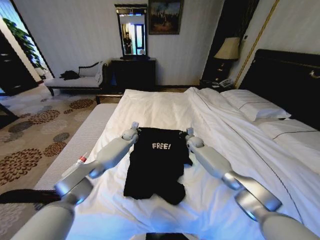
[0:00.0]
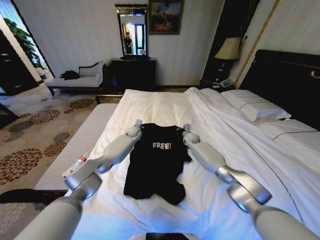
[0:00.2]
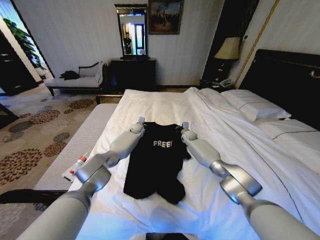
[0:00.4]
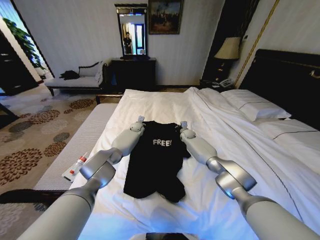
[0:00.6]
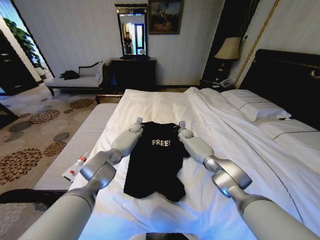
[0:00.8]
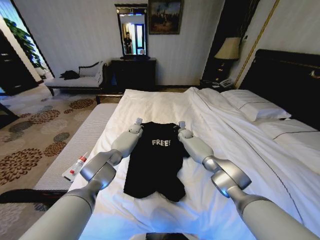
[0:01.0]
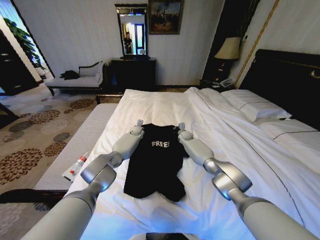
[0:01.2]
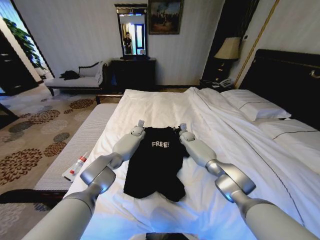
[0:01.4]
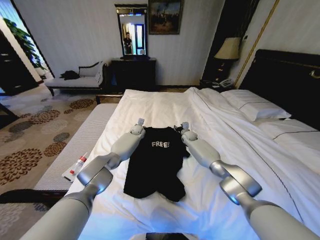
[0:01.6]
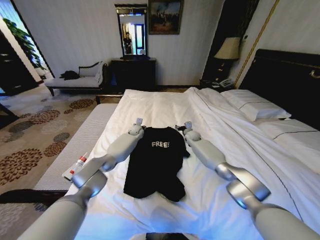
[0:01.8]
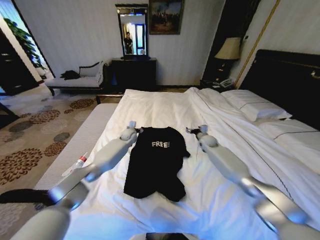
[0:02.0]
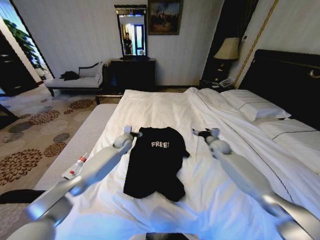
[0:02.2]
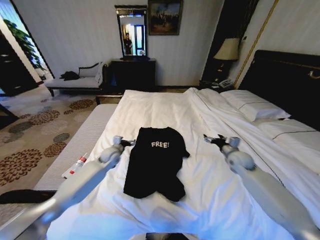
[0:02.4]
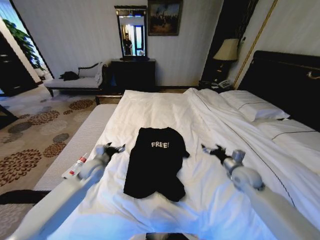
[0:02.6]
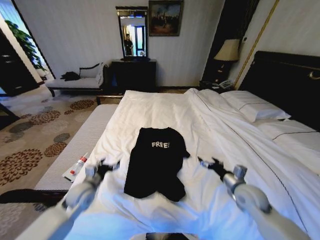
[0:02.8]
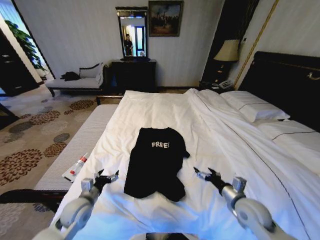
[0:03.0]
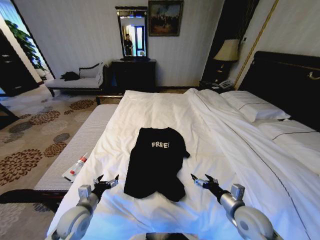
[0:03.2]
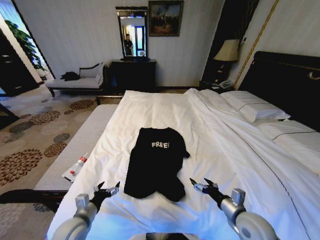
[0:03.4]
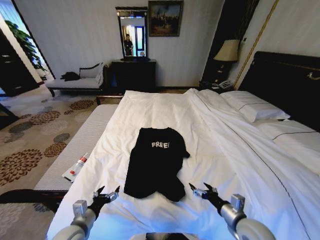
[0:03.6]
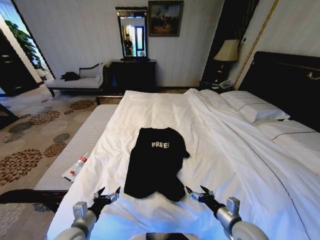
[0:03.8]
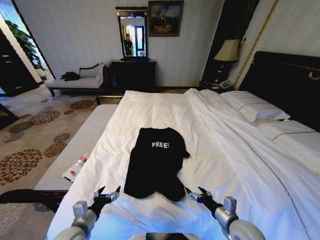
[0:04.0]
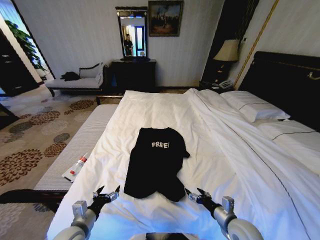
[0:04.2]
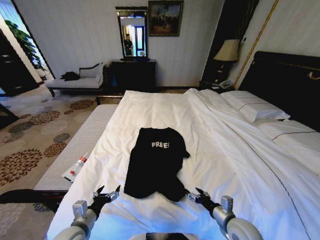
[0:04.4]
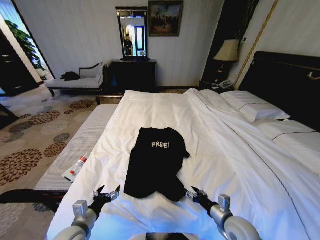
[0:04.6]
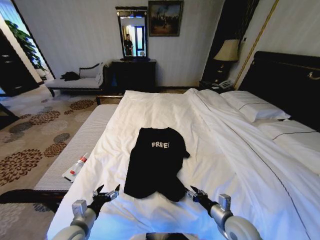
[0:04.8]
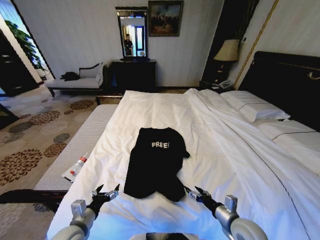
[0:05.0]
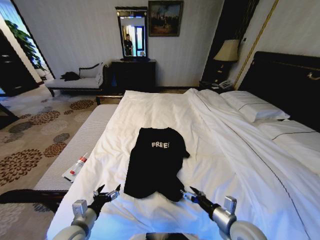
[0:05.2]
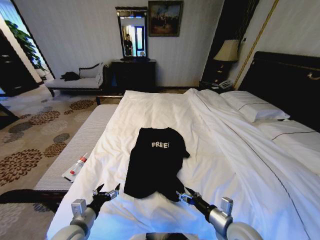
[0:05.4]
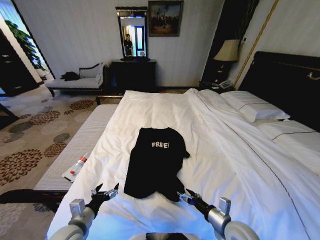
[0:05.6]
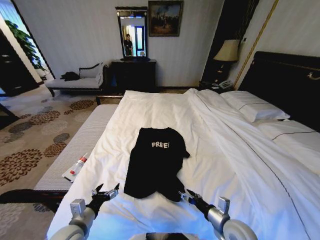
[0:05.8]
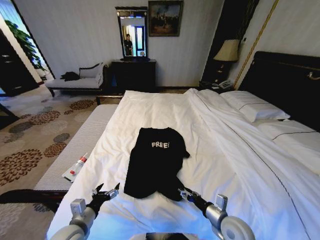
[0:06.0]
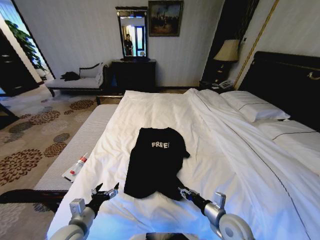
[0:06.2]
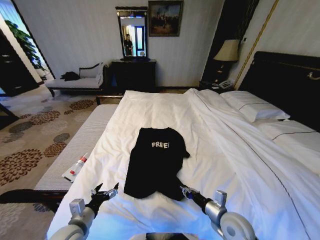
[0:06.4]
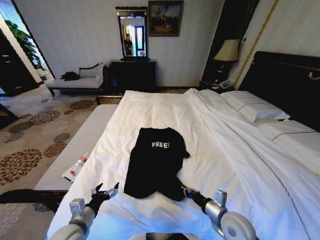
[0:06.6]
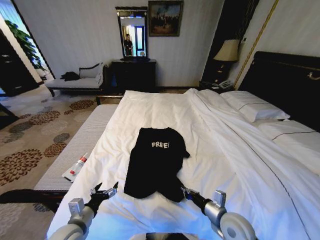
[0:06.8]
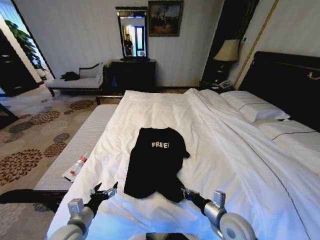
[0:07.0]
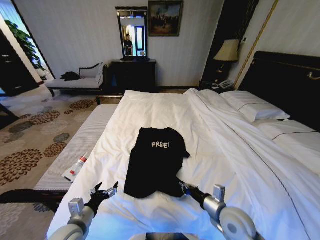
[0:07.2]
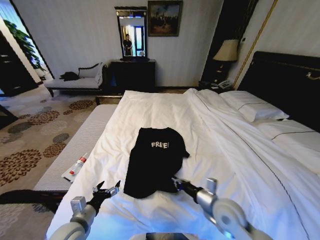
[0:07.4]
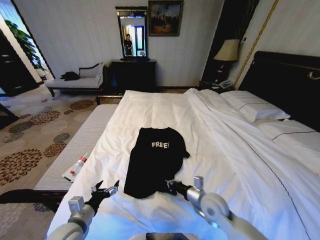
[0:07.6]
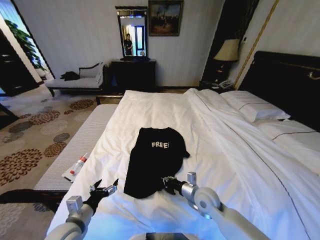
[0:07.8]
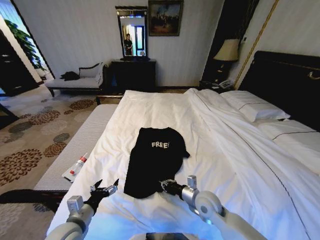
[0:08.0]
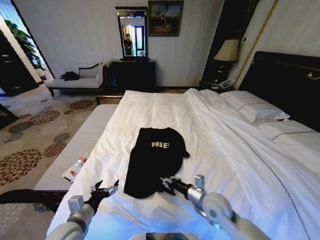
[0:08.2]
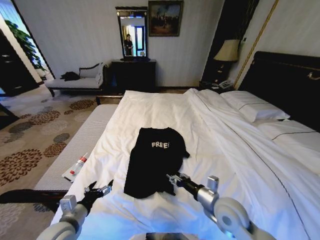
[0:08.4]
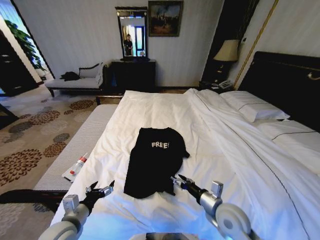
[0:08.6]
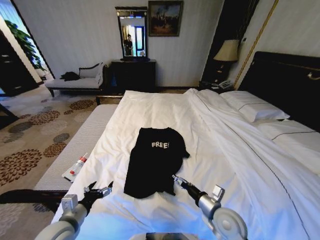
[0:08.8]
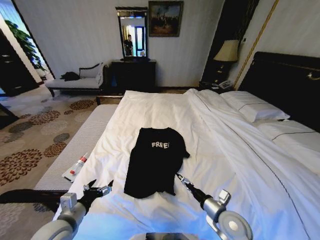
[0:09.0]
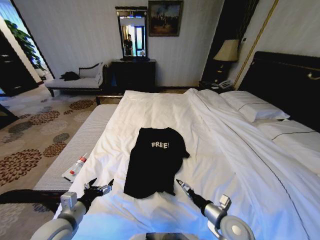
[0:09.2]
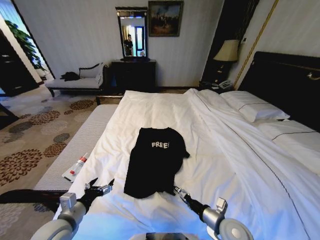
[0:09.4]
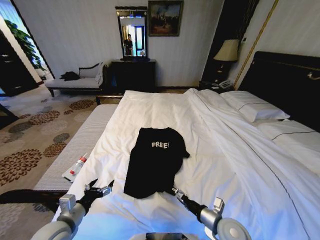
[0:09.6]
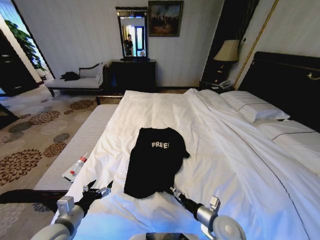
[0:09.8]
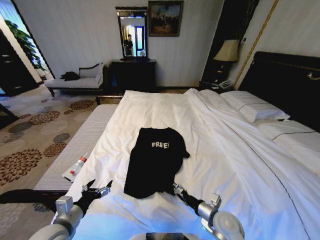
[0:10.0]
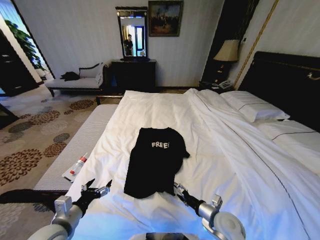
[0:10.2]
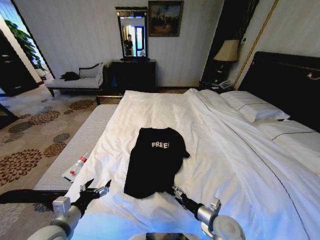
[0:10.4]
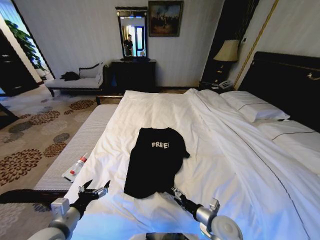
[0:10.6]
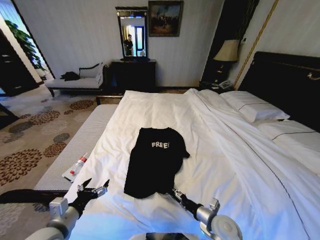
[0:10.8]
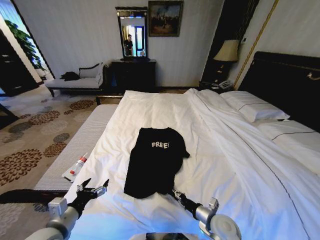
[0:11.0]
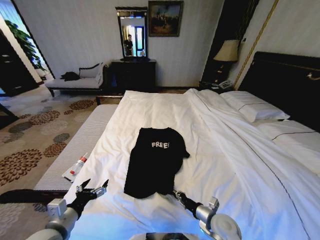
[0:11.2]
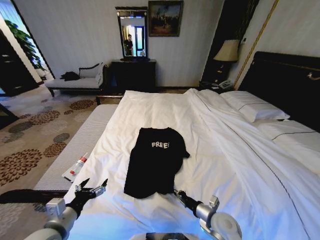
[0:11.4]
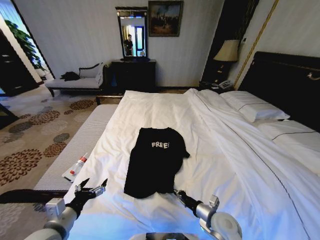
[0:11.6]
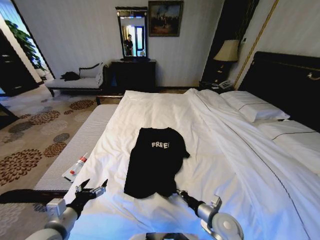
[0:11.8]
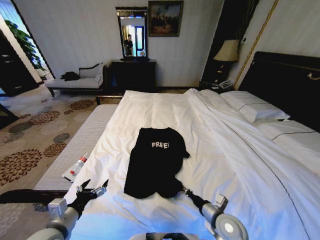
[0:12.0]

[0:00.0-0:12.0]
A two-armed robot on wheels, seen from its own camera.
Task of the whole recording: Fold the clothes on the bed.
0:00.0 to 0:01.6: The right gripper opens up; the left gripper moves some 5 cm, and opens up.
0:01.6 to 0:03.0: The right gripper travels backward by about 40 cm, and opens its fingers. The left gripper goes approximately 50 cm backward and to the left, and opens up.
0:03.0 to 0:04.4: The left gripper travels backward by roughly 10 cm. Meanwhile the right gripper moves backward, some 5 cm.
0:04.4 to 0:06.0: The grippers move only a little.
0:06.0 to 0:07.6: The right gripper heads forward and to the left, covering some 10 cm, and closes its fingers.
0:07.6 to 0:09.0: The right gripper is displaced backward by about 5 cm, and opens up.
0:09.0 to 0:10.4: The grippers make only small movements.
0:10.4 to 0:12.0: The right gripper closes its fingers.

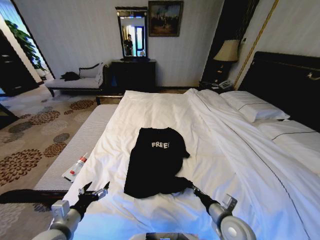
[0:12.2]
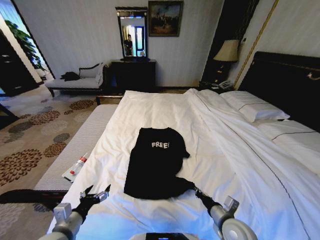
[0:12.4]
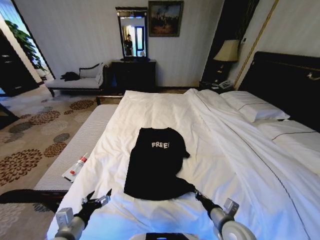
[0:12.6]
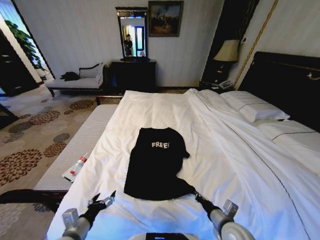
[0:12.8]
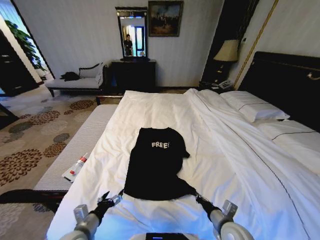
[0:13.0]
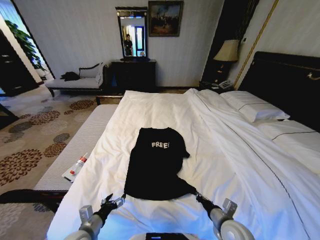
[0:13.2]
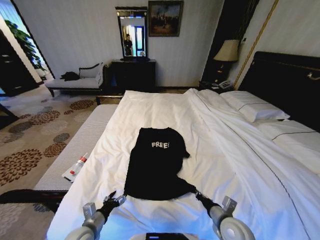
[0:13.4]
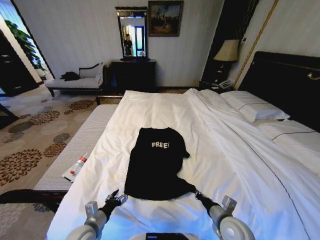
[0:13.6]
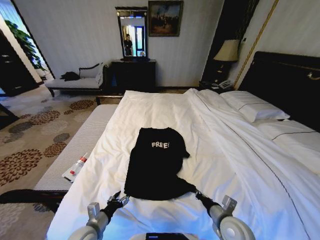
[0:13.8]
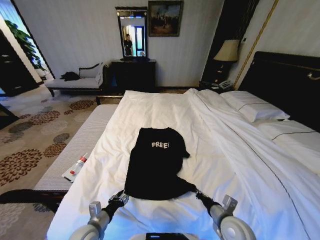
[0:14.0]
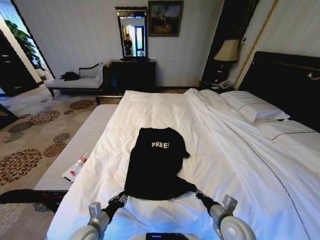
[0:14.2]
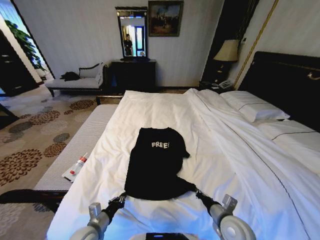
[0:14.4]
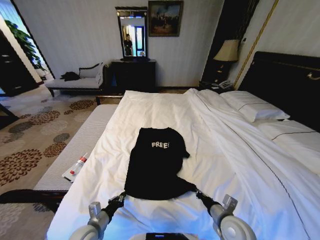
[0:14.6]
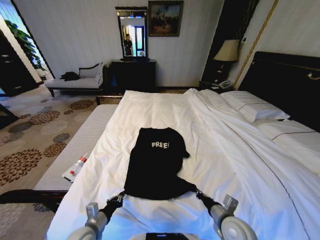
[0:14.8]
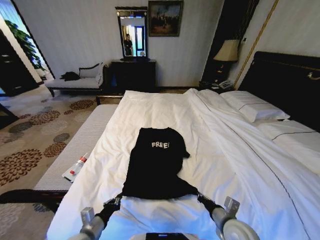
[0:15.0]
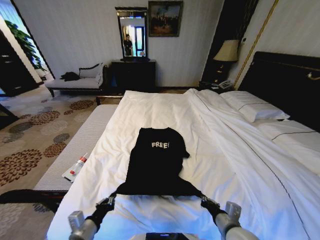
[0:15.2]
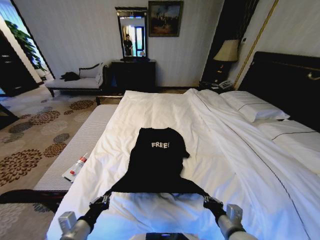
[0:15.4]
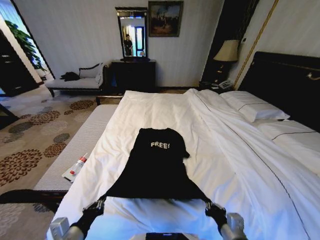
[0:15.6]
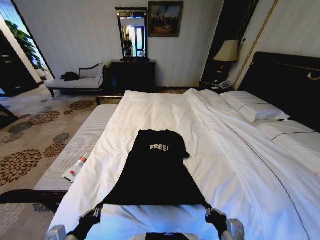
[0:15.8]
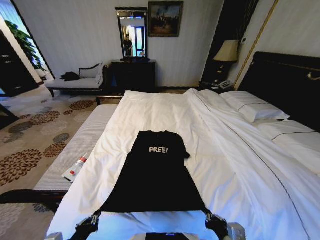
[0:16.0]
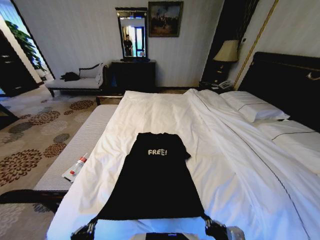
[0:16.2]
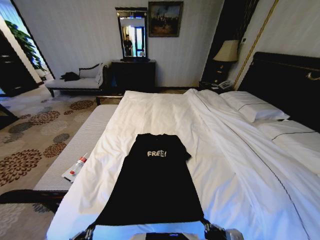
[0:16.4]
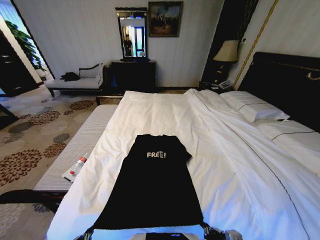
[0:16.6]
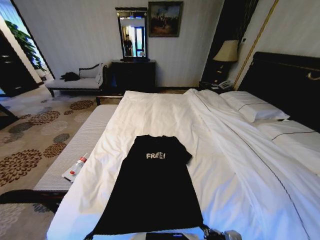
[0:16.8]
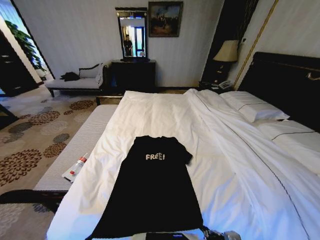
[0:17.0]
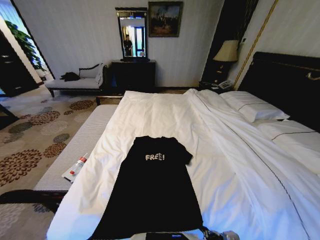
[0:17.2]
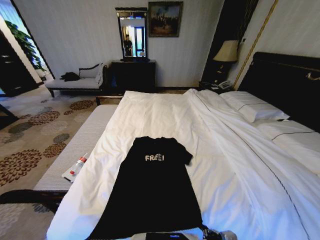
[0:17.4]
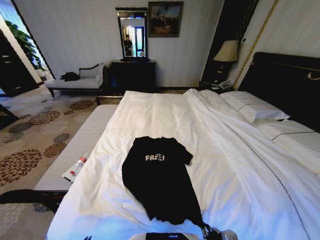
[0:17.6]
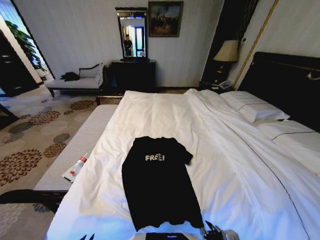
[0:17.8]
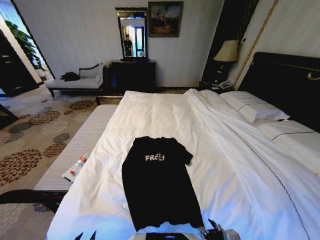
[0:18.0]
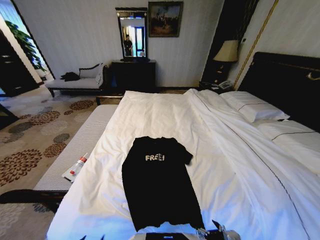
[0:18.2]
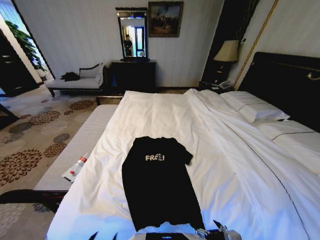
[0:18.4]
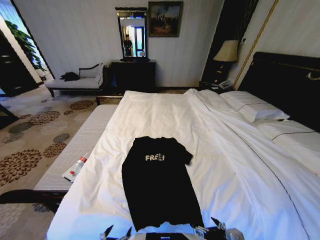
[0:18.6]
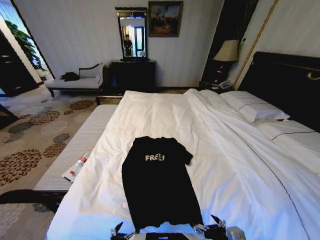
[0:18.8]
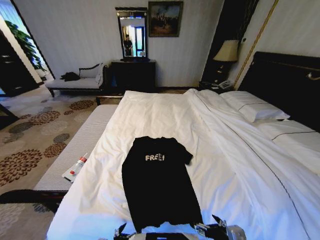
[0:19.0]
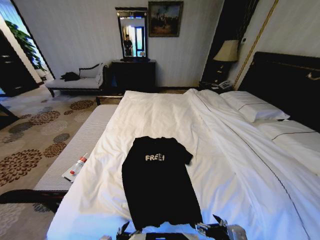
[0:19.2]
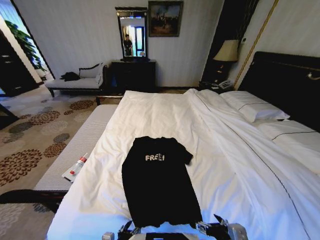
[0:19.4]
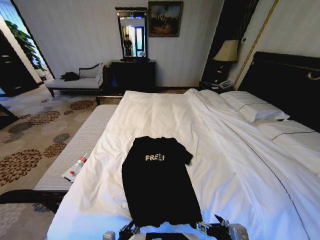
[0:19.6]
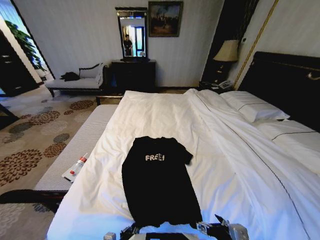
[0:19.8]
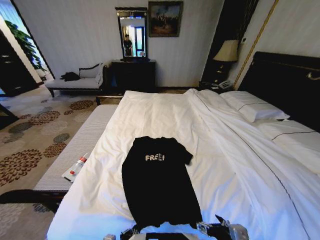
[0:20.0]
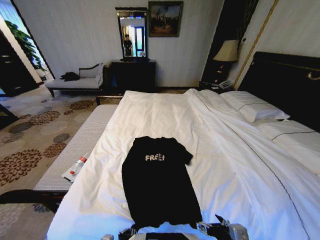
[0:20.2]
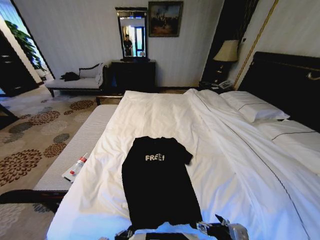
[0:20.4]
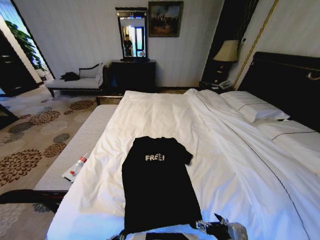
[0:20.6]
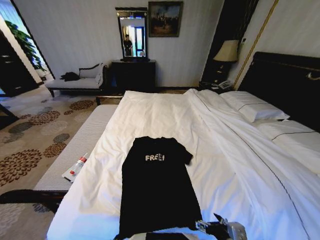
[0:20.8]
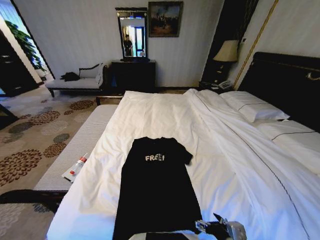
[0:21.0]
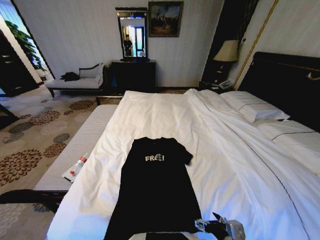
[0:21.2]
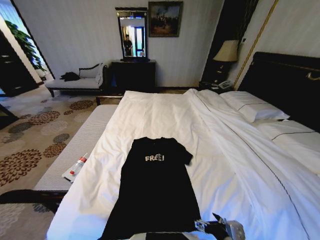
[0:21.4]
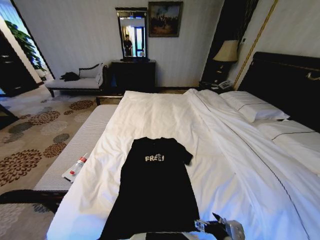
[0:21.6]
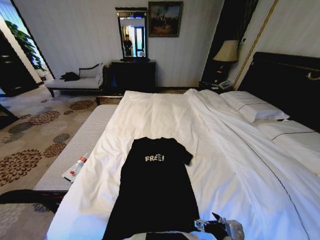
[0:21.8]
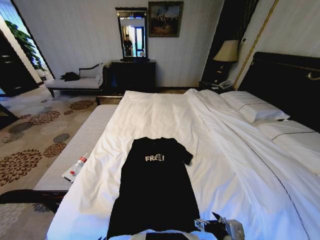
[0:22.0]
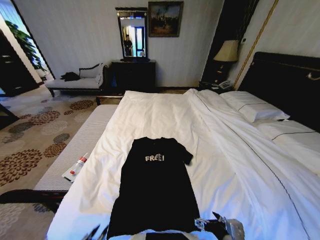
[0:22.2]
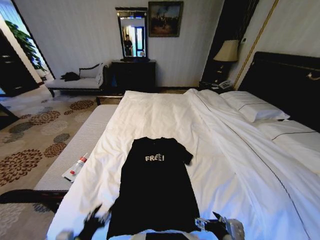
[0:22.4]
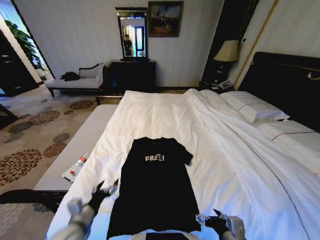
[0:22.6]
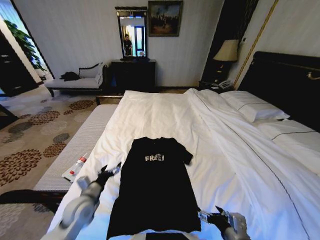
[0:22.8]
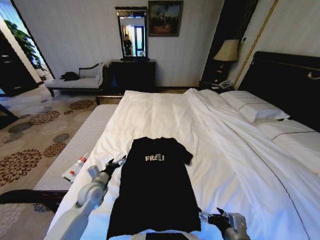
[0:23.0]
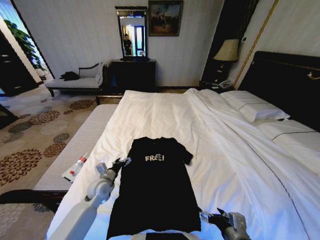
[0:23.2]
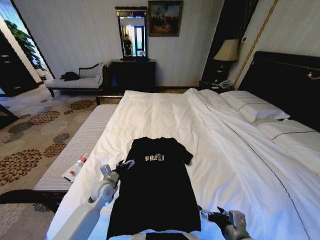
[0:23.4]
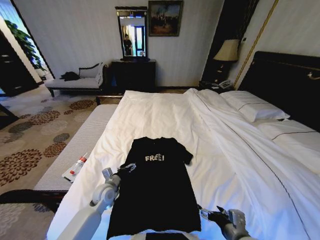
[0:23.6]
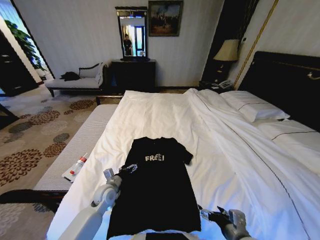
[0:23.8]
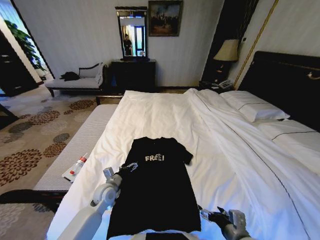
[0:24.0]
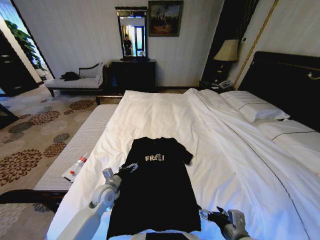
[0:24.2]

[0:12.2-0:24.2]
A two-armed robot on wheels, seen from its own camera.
Task of the whole recording: Fold the clothes on the bed.
0:12.2 to 0:13.8: The left gripper shifts roughly 10 cm downward and to the right.
0:13.8 to 0:15.2: The left gripper goes some 5 cm upward, and closes its fingers.
0:15.2 to 0:16.6: Both grippers travel together backward, about 10 cm.
0:16.6 to 0:18.2: The left gripper opens its fingers, while the right gripper opens.
0:18.2 to 0:19.8: The left gripper is displaced to the right, downward and forward by about 15 cm, and closes.
0:19.8 to 0:21.2: The left gripper is displaced to the left, backward and upward by about 15 cm.
0:21.2 to 0:22.6: The left gripper travels forward by roughly 15 cm, and opens.
0:22.6 to 0:24.2: The left gripper heads forward and downward, covering about 15 cm.
